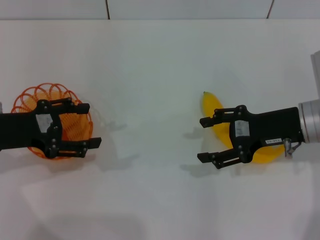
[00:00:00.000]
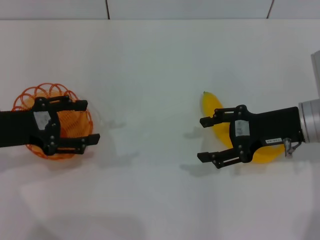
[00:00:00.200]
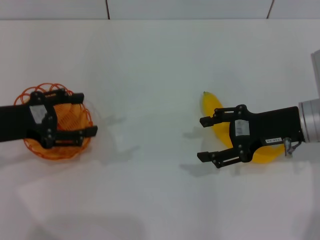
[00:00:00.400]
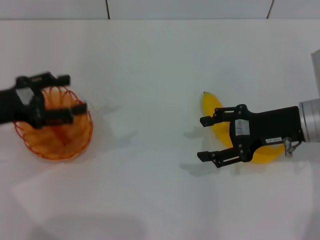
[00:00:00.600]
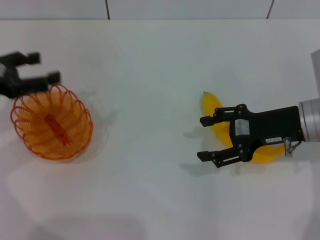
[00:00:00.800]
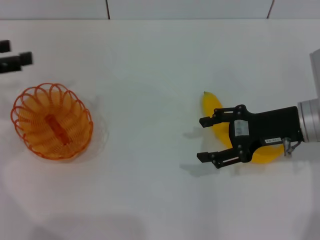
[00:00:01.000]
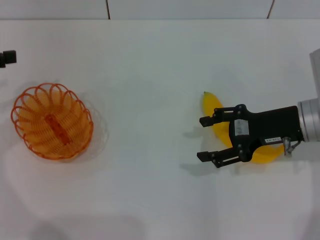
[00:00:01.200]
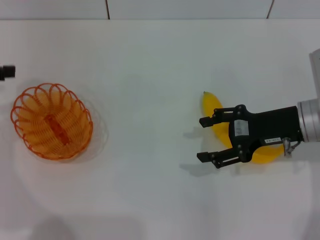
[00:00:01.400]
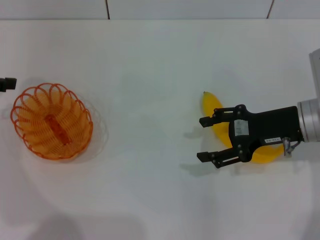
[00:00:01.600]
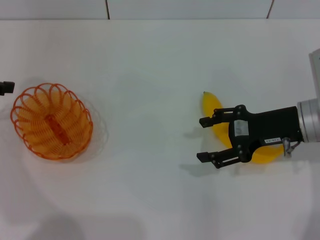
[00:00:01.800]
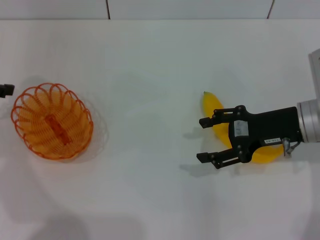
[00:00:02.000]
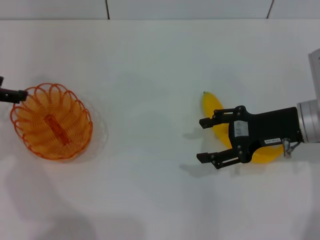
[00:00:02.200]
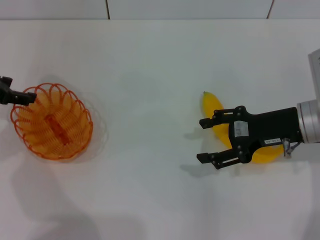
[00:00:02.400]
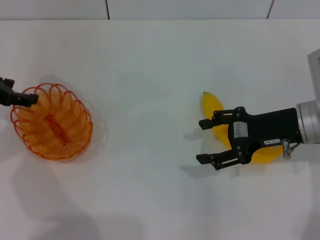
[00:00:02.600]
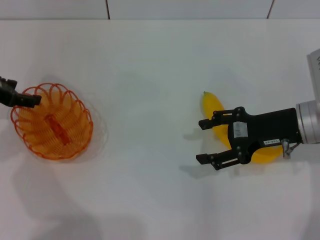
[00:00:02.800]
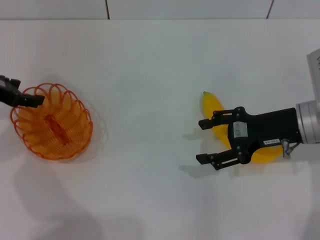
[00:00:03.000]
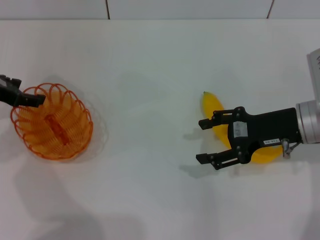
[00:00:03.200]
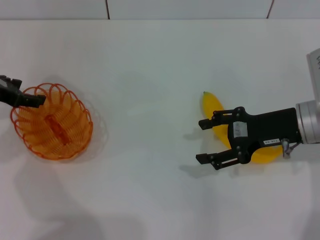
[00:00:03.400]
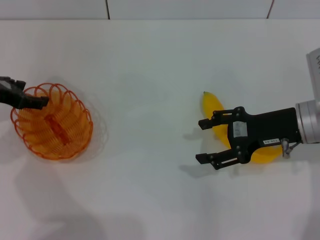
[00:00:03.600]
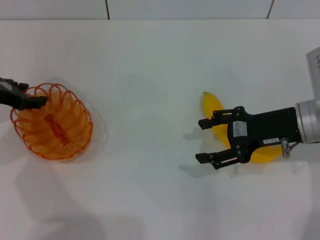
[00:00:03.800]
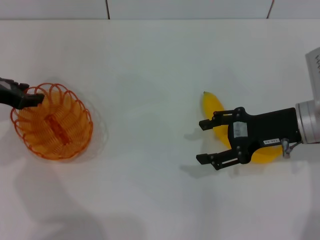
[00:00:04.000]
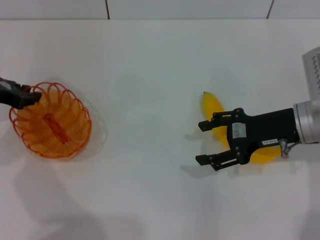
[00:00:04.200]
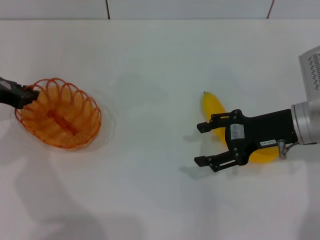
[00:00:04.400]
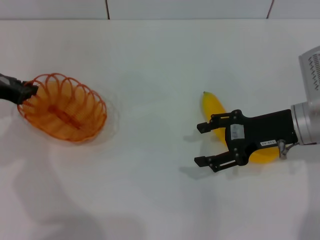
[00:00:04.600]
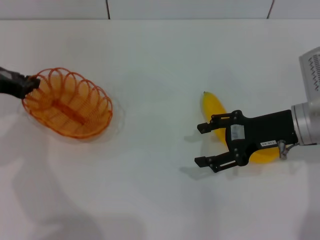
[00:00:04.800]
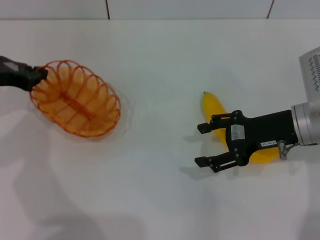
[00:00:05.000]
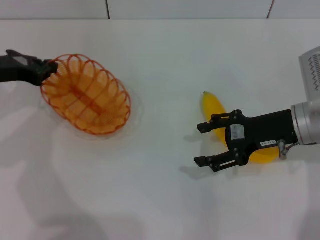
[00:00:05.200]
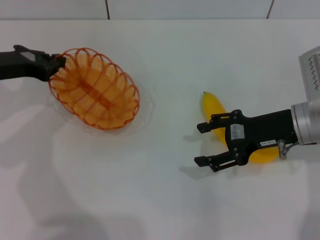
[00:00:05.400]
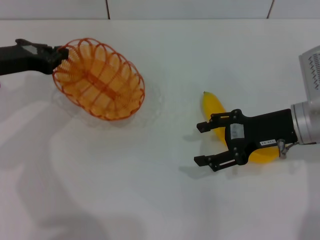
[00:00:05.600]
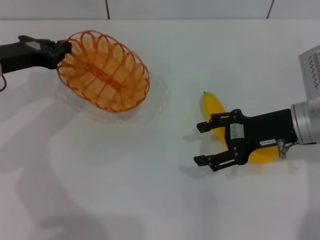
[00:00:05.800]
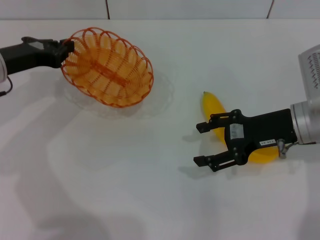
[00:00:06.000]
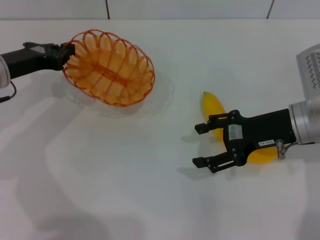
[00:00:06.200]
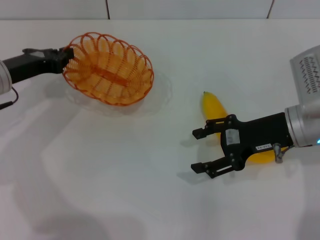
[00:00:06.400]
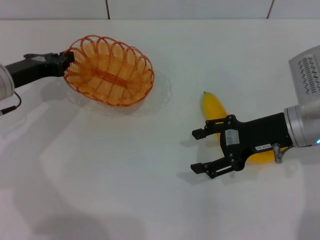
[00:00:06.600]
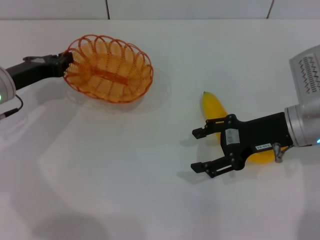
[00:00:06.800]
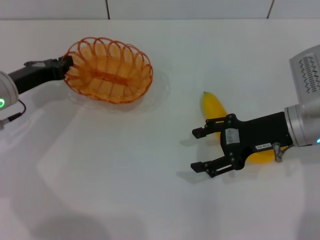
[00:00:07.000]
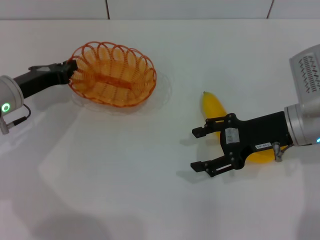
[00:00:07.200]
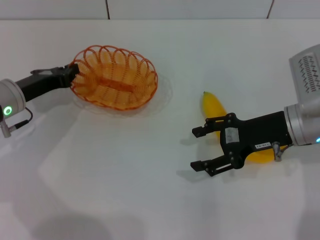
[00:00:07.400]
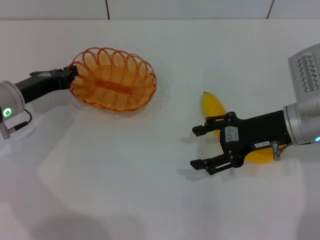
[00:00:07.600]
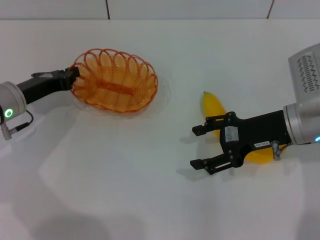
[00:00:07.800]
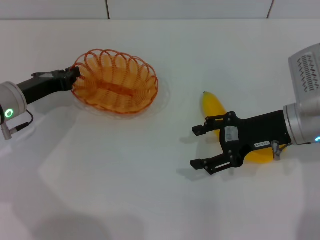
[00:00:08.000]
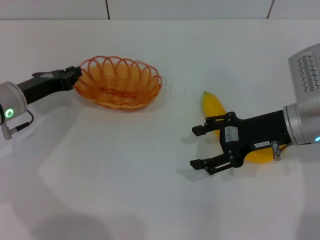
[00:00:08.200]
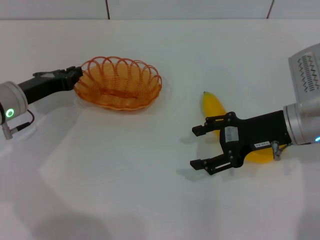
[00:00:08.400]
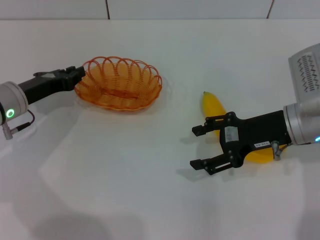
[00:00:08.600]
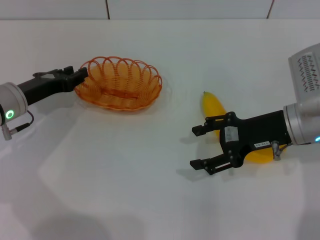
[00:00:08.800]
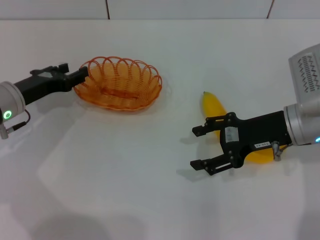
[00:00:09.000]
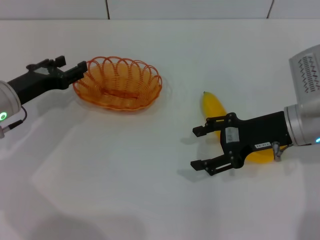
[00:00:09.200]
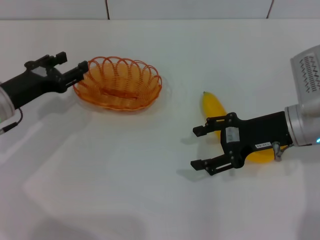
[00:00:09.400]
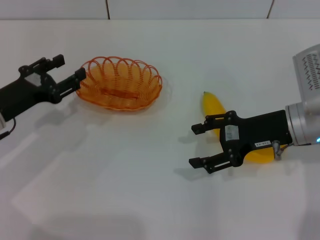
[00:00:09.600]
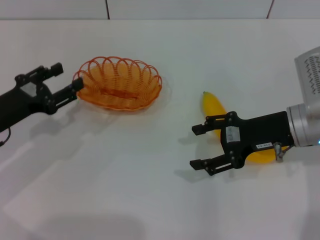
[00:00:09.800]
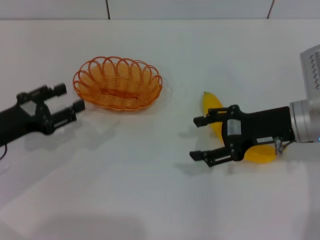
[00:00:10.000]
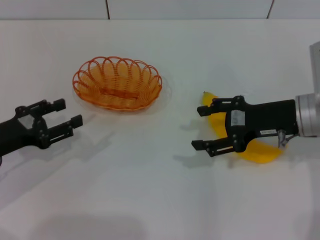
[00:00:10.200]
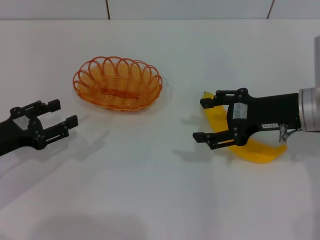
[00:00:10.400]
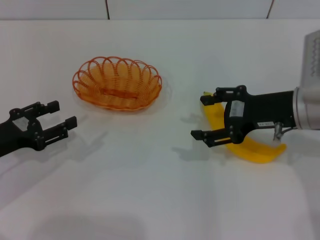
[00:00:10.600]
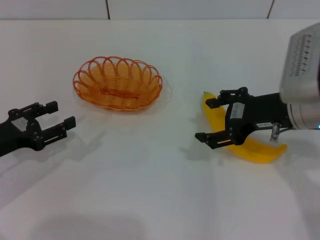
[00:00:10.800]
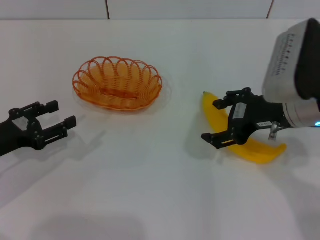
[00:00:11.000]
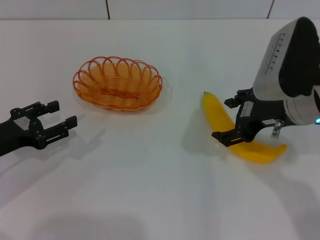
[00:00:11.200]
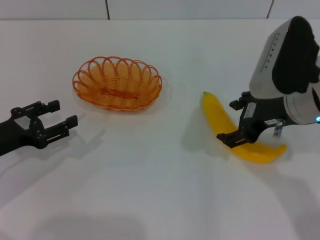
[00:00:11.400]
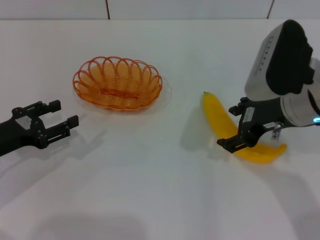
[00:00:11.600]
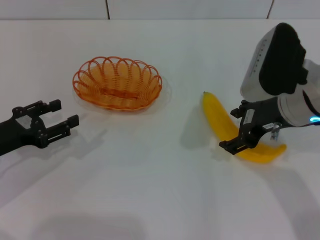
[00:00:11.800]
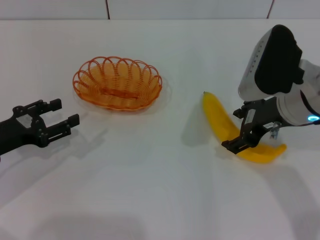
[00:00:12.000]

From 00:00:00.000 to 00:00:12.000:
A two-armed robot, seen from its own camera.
Step, from 00:00:00.000 to 00:00:05.400: Pick up the basket with the left gripper.
Step, from 00:00:05.600 to 00:00:09.400: Place the basket in the center of view with the left gripper.
From 00:00:00.000 to 00:00:01.600: The left gripper travels to the left, upward and forward by some 10 cm.
From 00:00:01.600 to 00:00:03.000: The left gripper moves approximately 5 cm.
From 00:00:03.000 to 00:00:04.400: The left gripper closes its fingers.
From 00:00:06.000 to 00:00:07.600: The left gripper shifts approximately 5 cm downward.
From 00:00:07.600 to 00:00:09.000: The left gripper opens up.
From 00:00:09.000 to 00:00:10.400: The left gripper moves backward, about 10 cm.

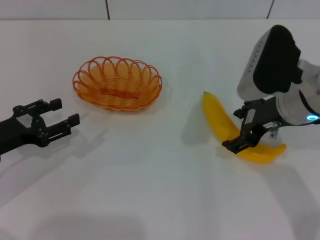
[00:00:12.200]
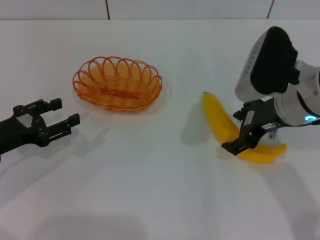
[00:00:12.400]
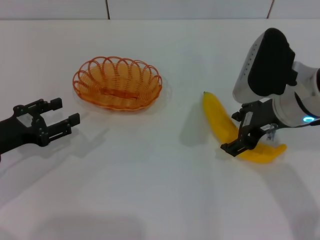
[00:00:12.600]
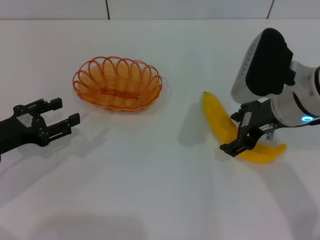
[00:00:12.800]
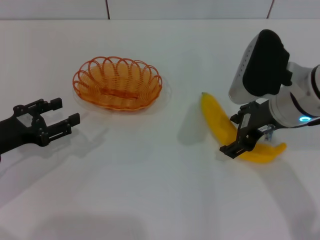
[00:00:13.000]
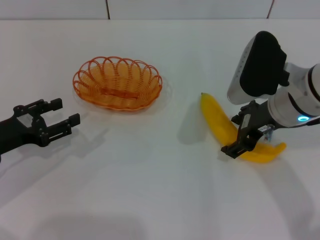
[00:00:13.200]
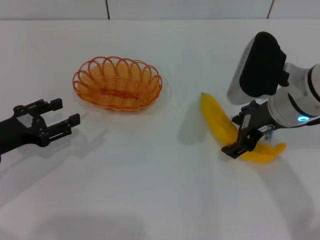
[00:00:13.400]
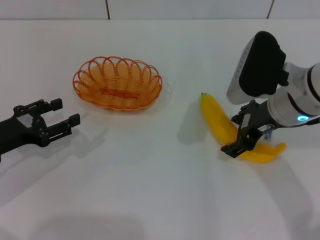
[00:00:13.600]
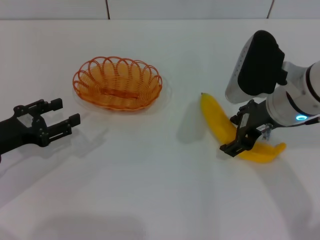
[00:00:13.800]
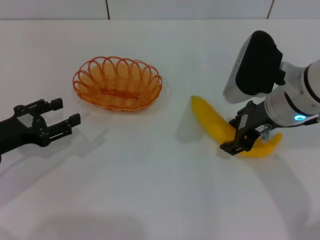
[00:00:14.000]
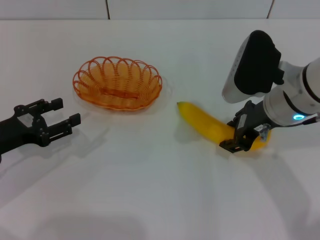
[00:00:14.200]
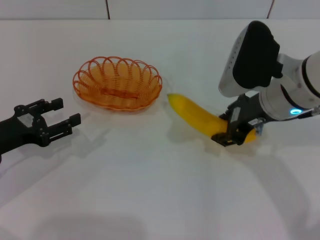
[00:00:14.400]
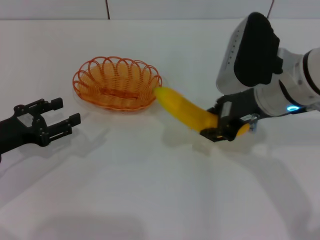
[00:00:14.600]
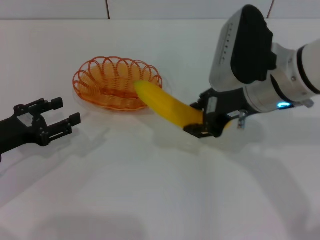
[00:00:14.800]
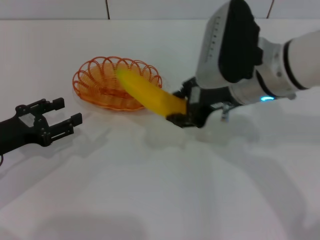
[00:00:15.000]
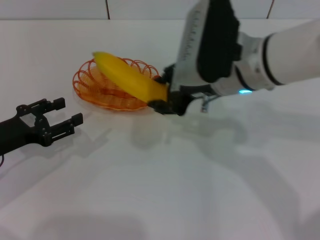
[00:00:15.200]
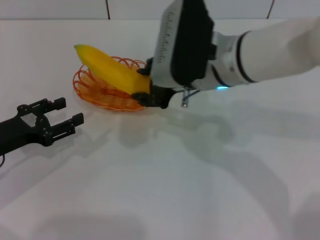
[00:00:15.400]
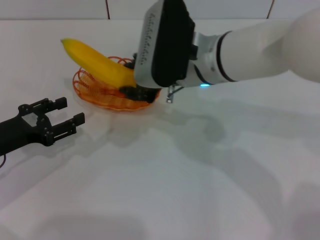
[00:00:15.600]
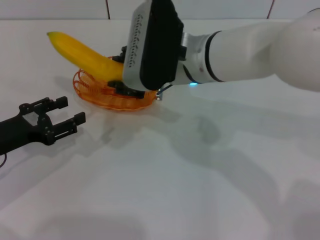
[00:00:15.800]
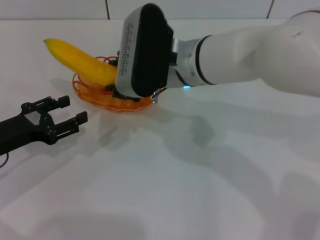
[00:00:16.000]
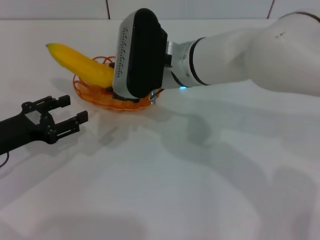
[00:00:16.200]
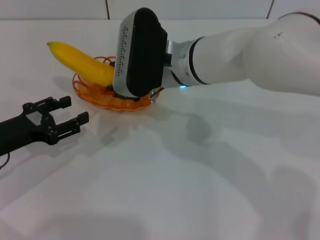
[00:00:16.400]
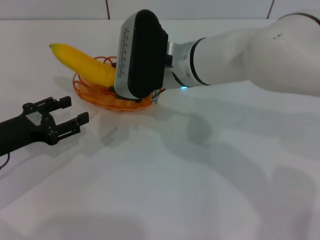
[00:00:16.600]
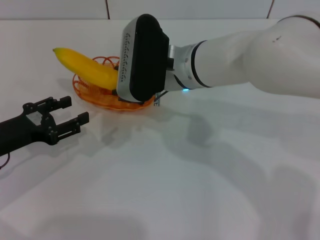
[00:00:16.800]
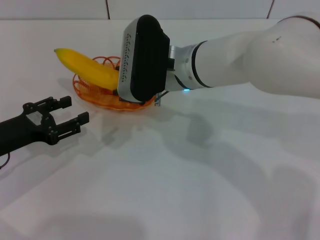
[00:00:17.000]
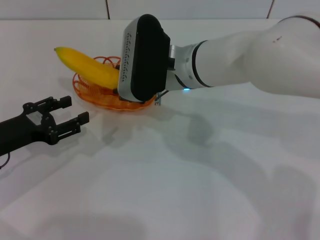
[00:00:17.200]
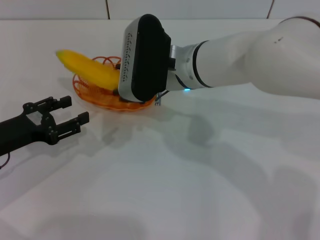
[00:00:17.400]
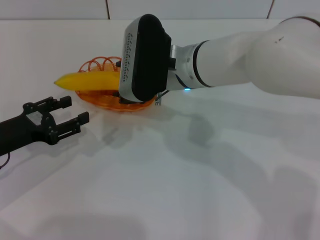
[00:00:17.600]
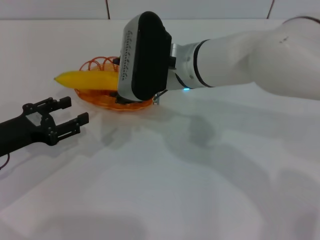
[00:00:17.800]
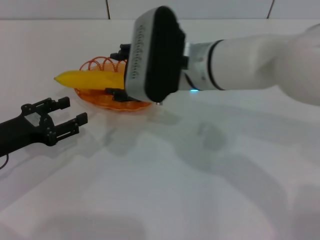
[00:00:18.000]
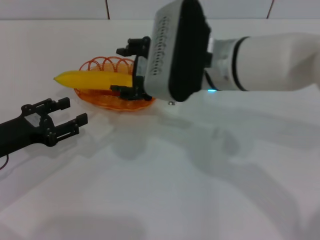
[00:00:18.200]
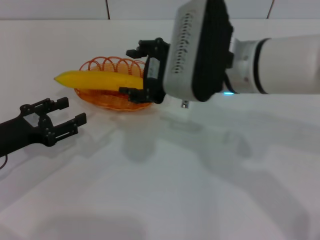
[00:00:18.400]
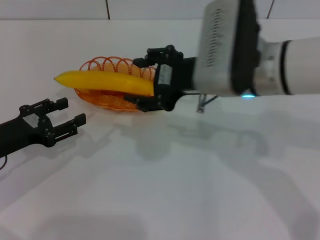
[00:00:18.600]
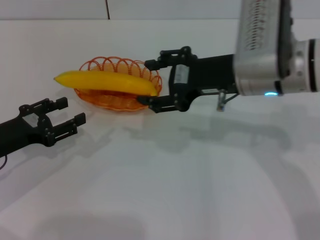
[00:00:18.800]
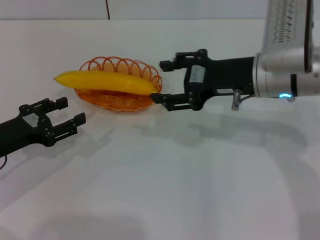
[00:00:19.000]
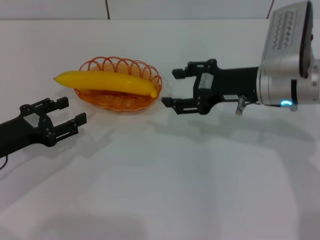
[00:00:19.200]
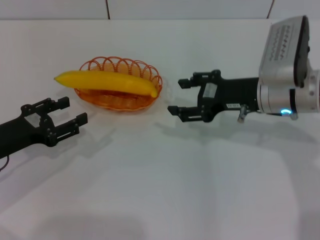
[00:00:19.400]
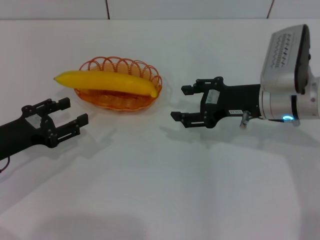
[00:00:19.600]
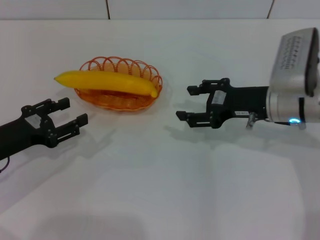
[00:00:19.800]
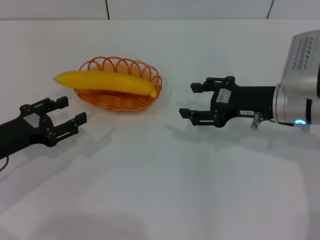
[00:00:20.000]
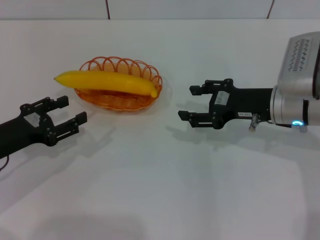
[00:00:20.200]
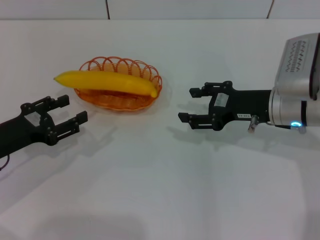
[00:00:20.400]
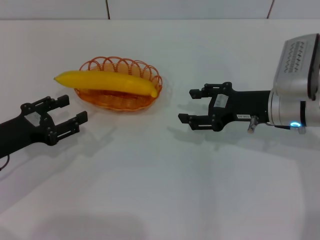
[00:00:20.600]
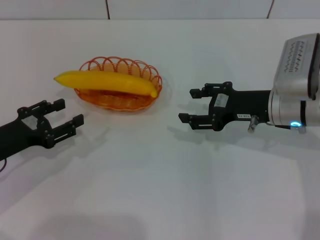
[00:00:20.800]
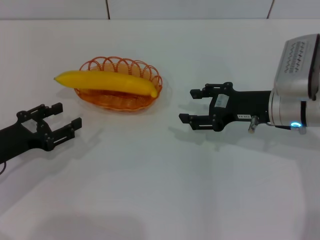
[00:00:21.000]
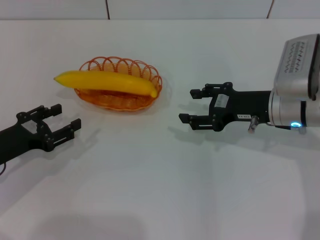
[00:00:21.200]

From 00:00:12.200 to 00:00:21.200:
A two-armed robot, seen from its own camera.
Step, from 00:00:12.200 to 00:00:14.800: Pick up the banana with the right gripper.
Step, from 00:00:15.200 to 00:00:18.200: Place the banana into the basket with the right gripper.
From 00:00:12.200 to 00:00:13.800: The grippers move only a little.
From 00:00:13.800 to 00:00:15.200: The right gripper shifts roughly 5 cm to the left, and closes its fingers.
From 00:00:15.200 to 00:00:16.600: The right gripper goes some 5 cm to the left.
From 00:00:16.600 to 00:00:18.200: The right gripper ends up some 5 cm from where it was, and opens its fingers.
From 00:00:18.200 to 00:00:19.800: The right gripper heads to the right and downward, covering about 15 cm.
From 00:00:19.800 to 00:00:21.200: The grippers stay close to where they were, moving slightly.
